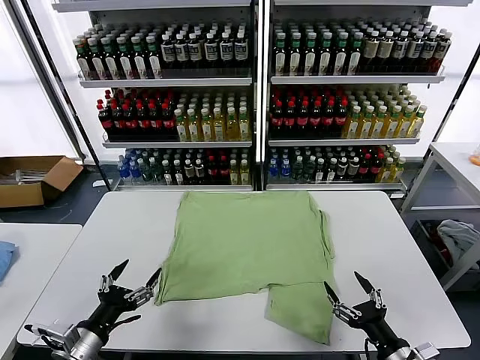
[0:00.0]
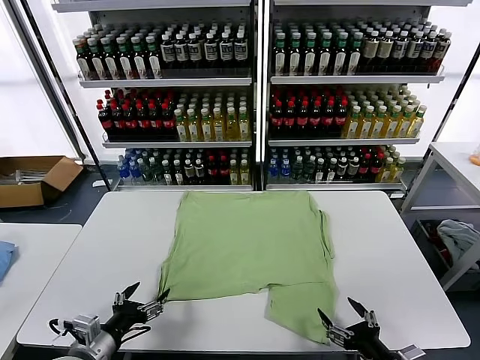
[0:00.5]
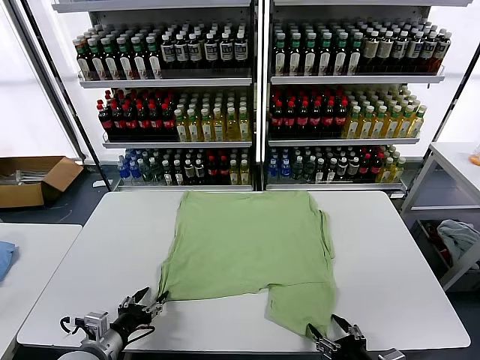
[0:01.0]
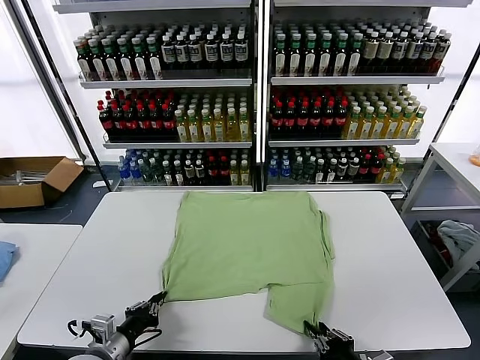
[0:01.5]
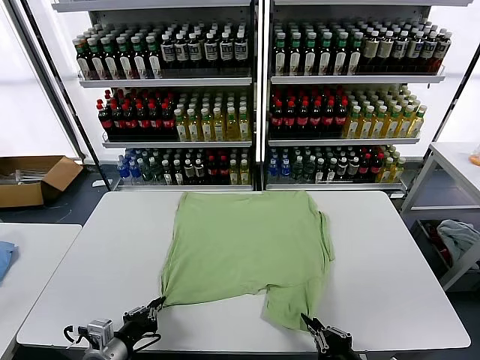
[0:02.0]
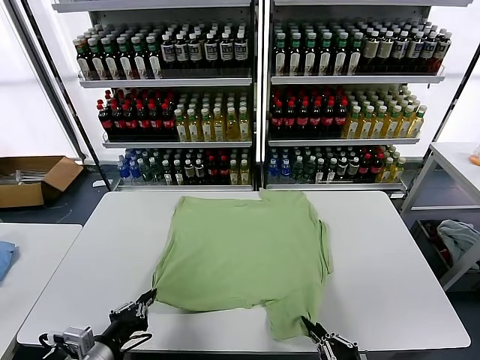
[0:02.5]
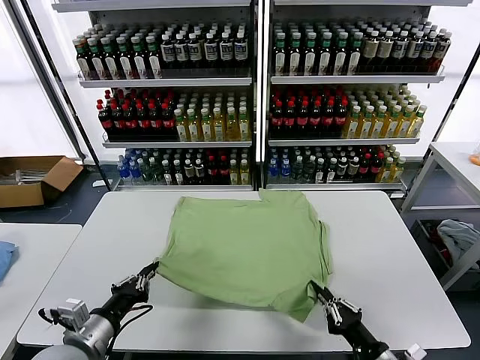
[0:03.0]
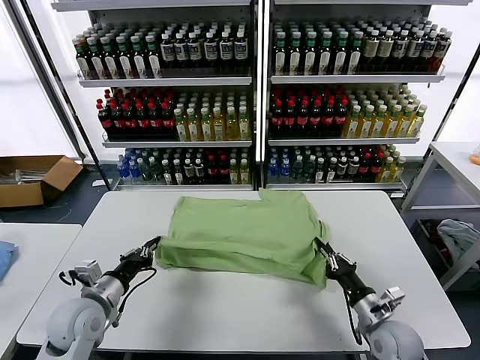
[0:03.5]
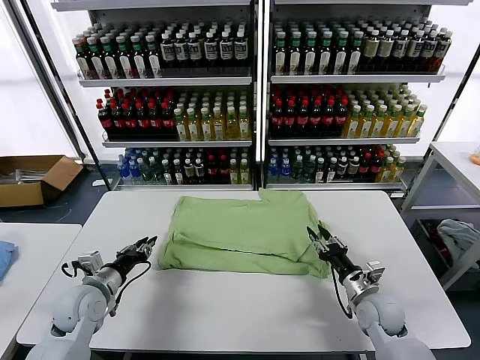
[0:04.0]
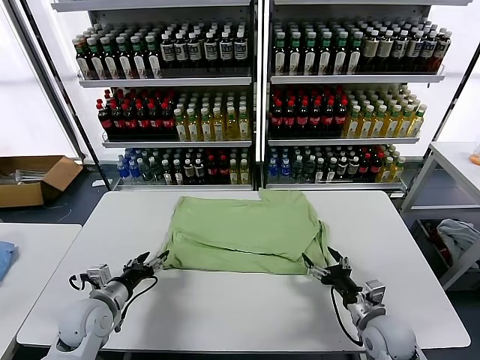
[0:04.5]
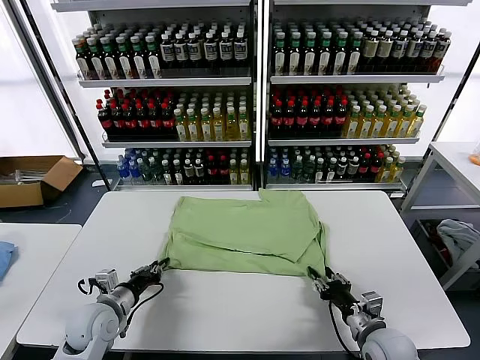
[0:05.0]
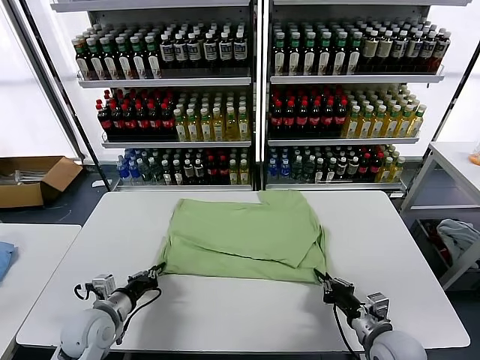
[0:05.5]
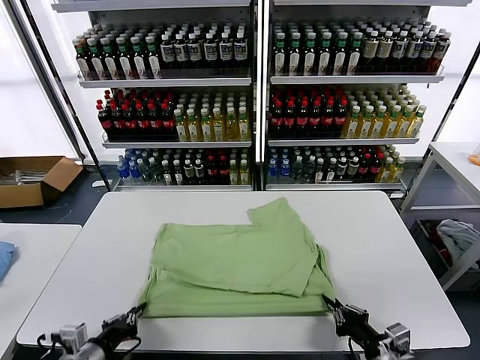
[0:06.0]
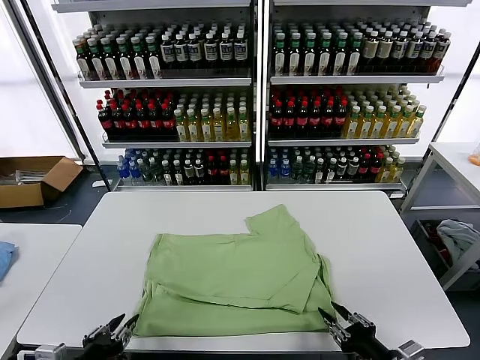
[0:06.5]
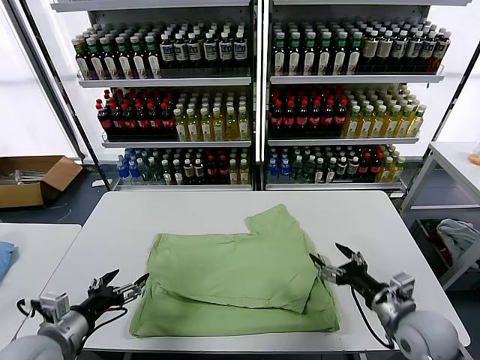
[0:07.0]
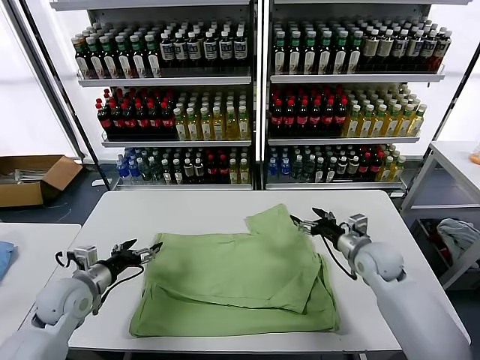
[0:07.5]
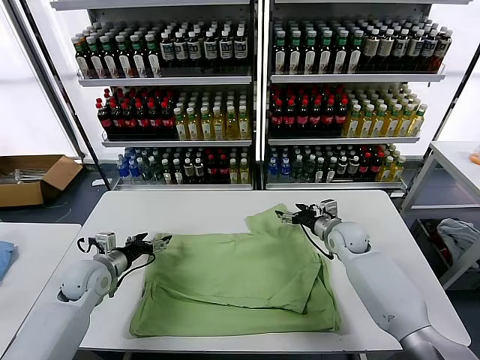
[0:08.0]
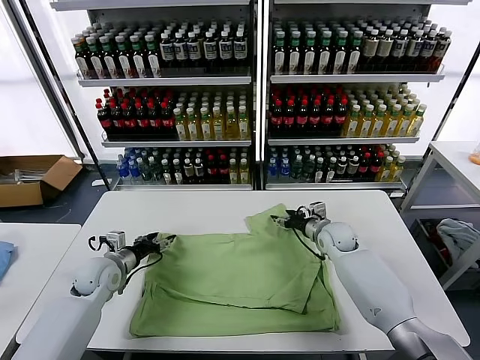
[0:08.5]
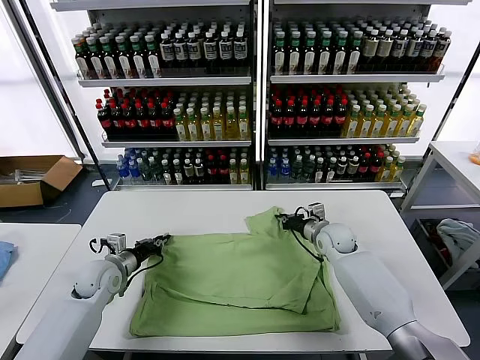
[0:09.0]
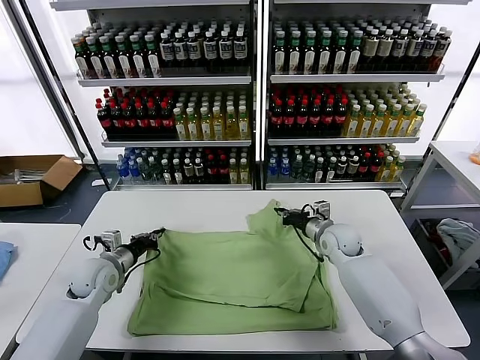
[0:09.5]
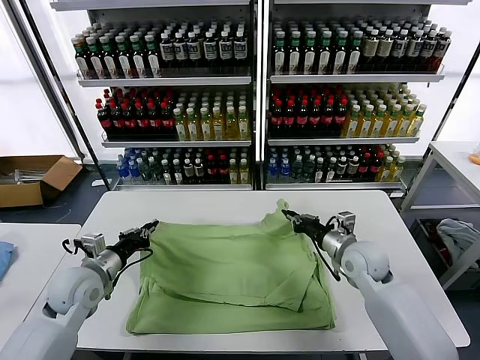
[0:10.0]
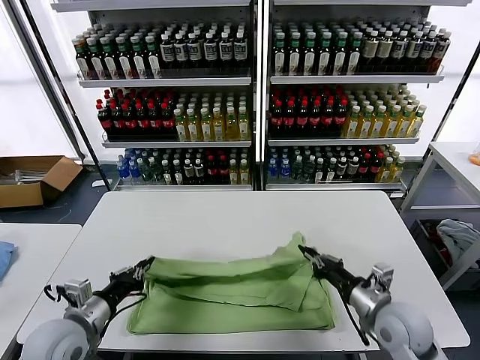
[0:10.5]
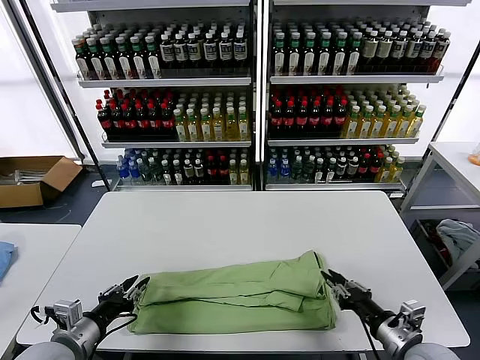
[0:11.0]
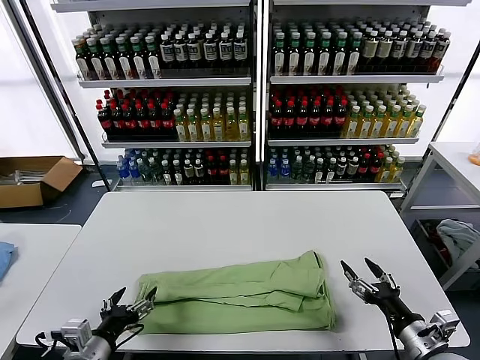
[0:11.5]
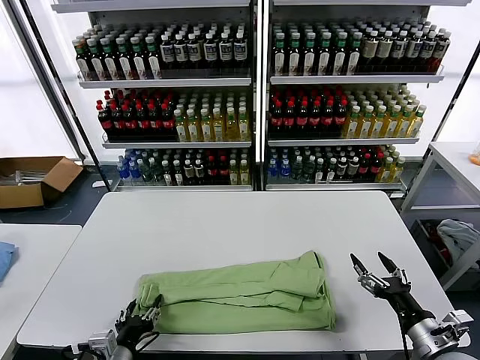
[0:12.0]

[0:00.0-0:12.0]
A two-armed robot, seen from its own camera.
Task of the whole recording: fold and organize the clothes.
Step, 0:00.0 to 0:01.5: use both grippers simultaneously to clamp the lower edge of the clothing fabric.
Step, 0:02.0 to 0:04.0: use both grippers to drag the lower edge of the fabric forward and fold it over the upper edge.
Step, 0:04.5 to 0:06.5: Drag the clothes downward with both gripper.
Step, 0:07.0 to 0:09.0: use both grippers simultaneously to clamp the upper edge of the clothing fabric.
Step, 0:09.5 to 0:11.0: use both grippers to drag the upper edge of the fabric backward and fold it over the lower edge.
0:02.0 to 0:04.0: The right gripper goes some 20 cm forward, and opens its fingers. Meanwhile the left gripper heads forward, covering approximately 15 cm, and opens its fingers.
0:04.0 to 0:06.0: Both grippers move backward, about 15 cm. The right gripper closes up; the left gripper closes its fingers.
0:06.0 to 0:08.0: The right gripper travels forward by about 35 cm, and opens its fingers, while the left gripper moves forward, about 20 cm, and opens.
0:08.0 to 0:10.0: The right gripper shifts approximately 10 cm backward, and closes up; the left gripper ends up approximately 5 cm from where it was, and closes.
0:10.0 to 0:12.0: The right gripper travels backward and to the right by roughly 25 cm, and opens; the left gripper is displaced backward, to the right and downward by some 20 cm, and opens.

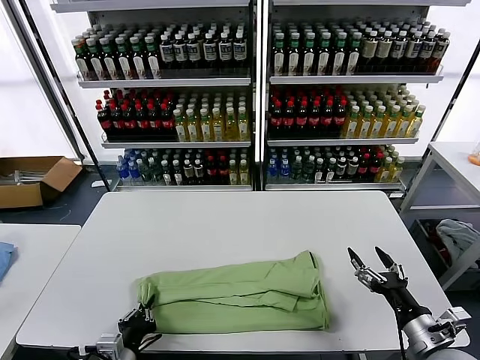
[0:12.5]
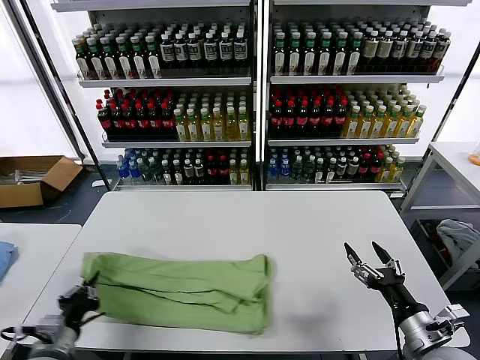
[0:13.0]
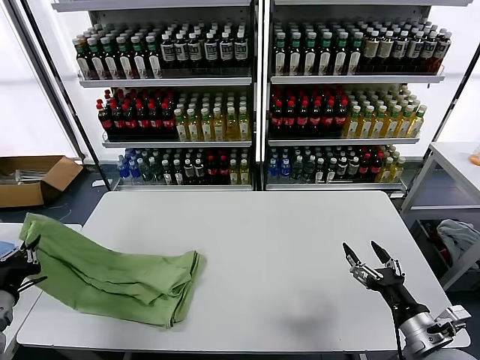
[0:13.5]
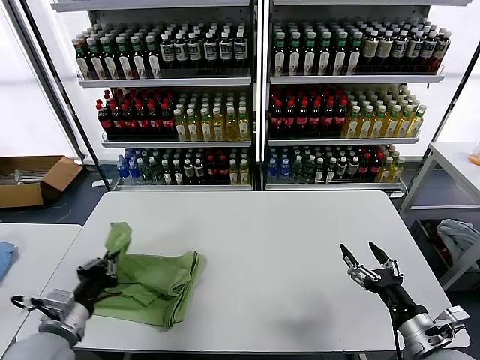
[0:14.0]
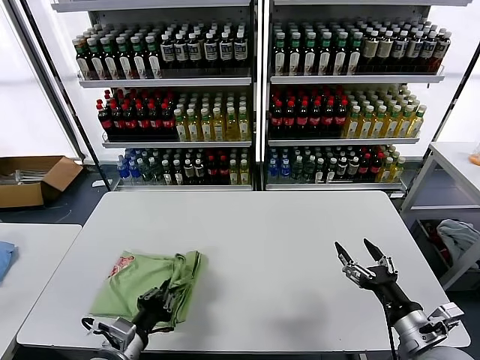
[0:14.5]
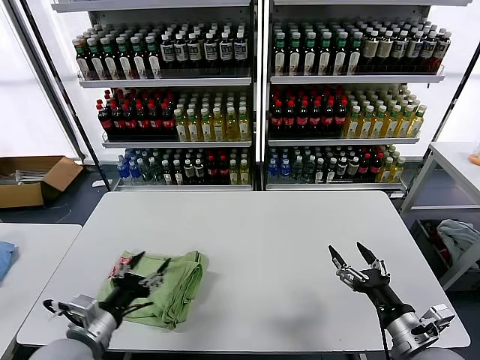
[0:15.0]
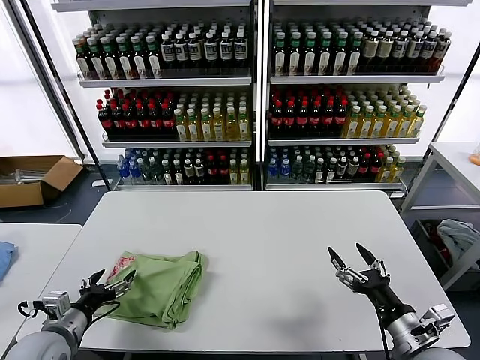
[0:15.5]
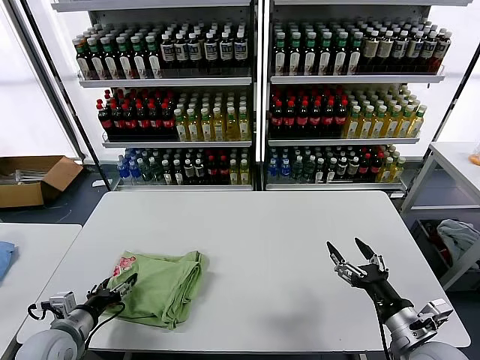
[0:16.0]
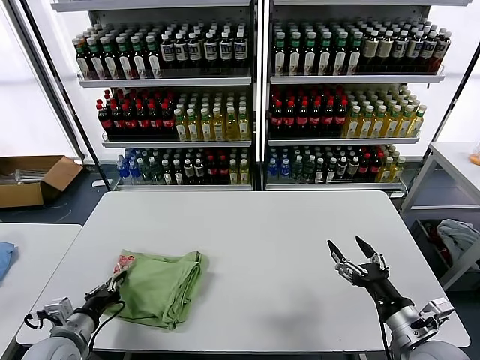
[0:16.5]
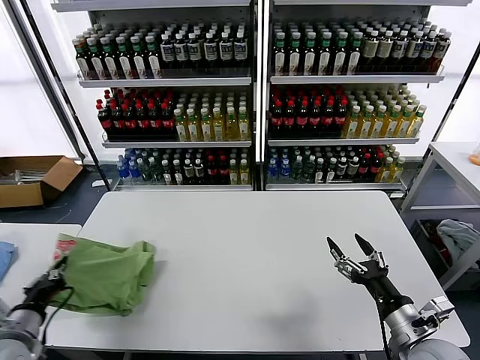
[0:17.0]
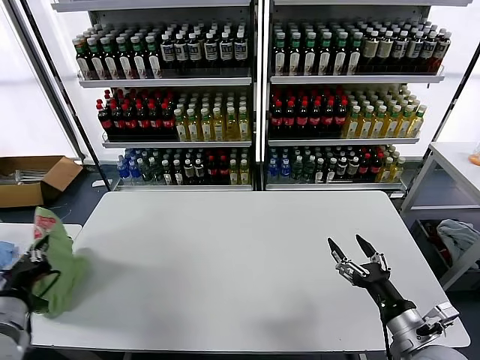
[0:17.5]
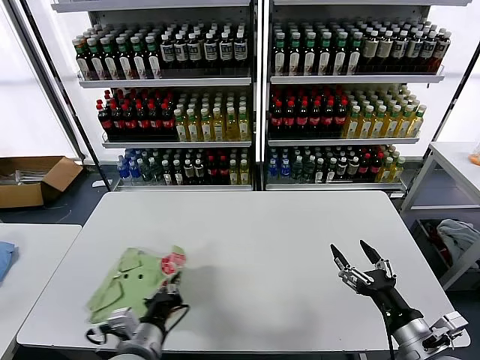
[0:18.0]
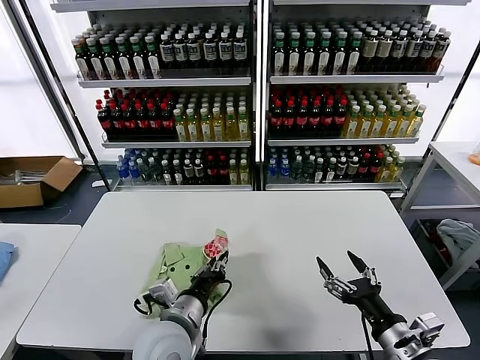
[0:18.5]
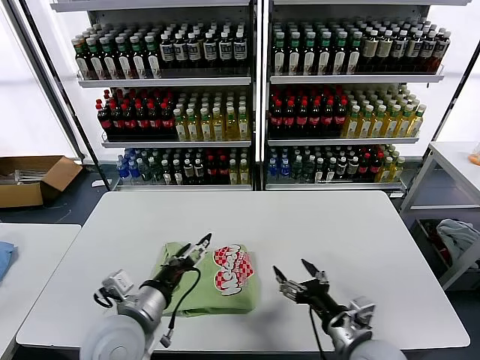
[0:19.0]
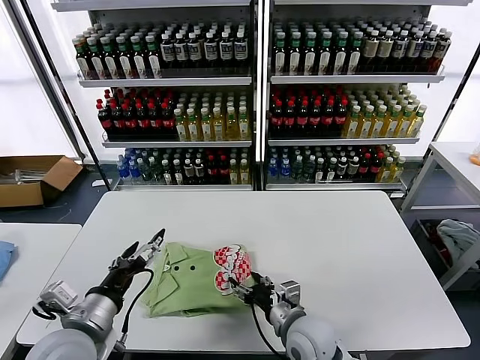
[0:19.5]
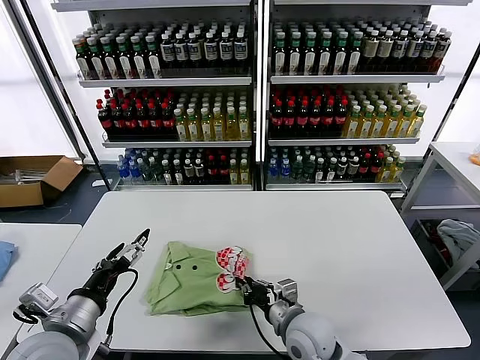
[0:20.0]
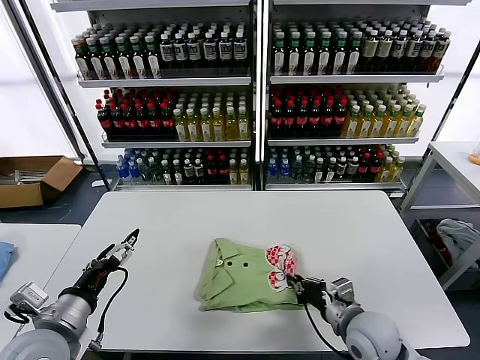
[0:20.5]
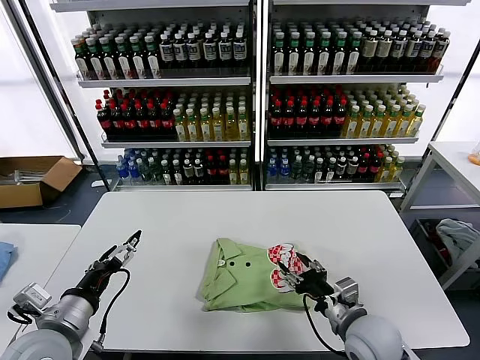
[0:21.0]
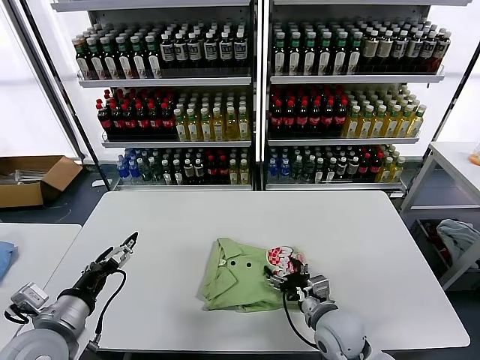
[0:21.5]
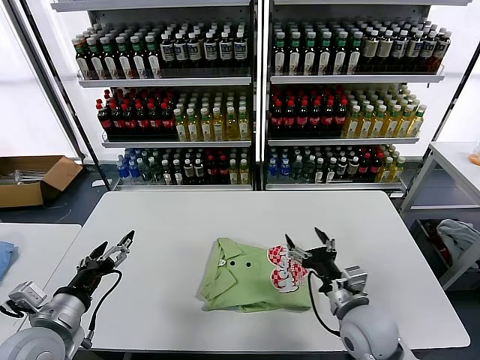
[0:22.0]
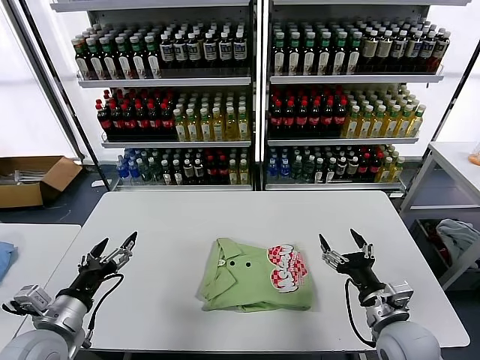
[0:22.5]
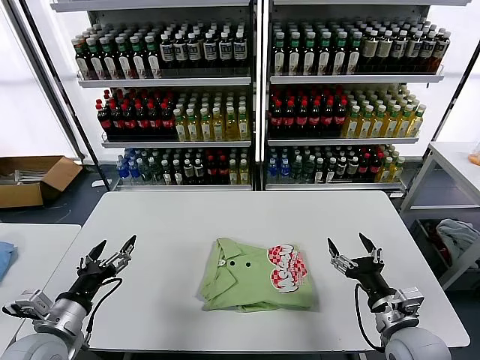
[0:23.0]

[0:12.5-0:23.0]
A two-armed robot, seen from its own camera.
Task of the whole recording: fold and organize the clothes.
Step, 0:13.0 to 0:14.5: use the left gripper to drag the left edge of the fabric to the left and folds it over the right edge.
Step, 0:15.0 to 0:18.5: Flip the folded clothes over with left gripper.
Step, 0:19.0 to 0:21.5: Drag the clothes to the center of the table.
0:12.5 to 0:14.5: The left gripper goes to the left and returns, approximately 20 cm each way.
0:14.5 to 0:16.5: The left gripper goes about 10 cm to the left, and opens and closes again.
0:16.5 to 0:19.0: The left gripper goes left and right, approximately 30 cm each way, reversing 2 times, and opens its fingers. Meanwhile the right gripper is displaced to the left by about 10 cm.
0:19.0 to 0:21.0: The left gripper goes some 10 cm to the left; the right gripper reaches about 10 cm to the left, then returns, and closes its fingers.
0:21.0 to 0:23.0: The right gripper goes approximately 5 cm to the right, and opens. The left gripper changes place by roughly 5 cm.

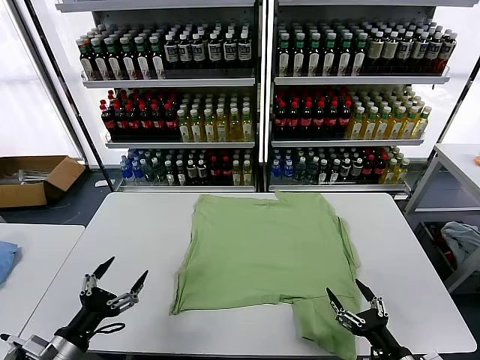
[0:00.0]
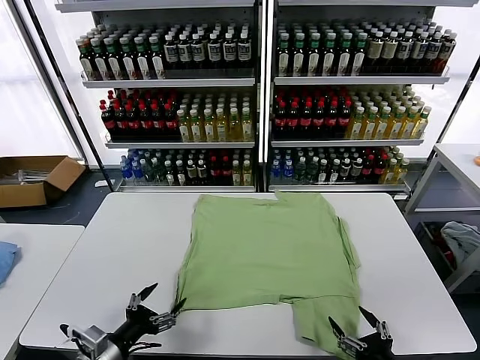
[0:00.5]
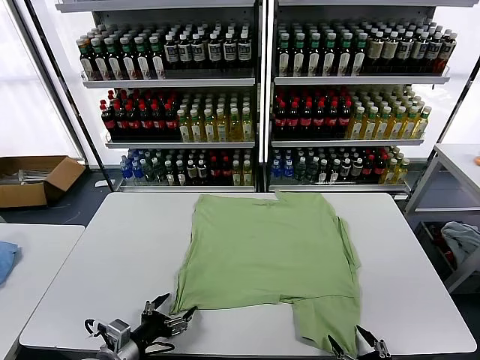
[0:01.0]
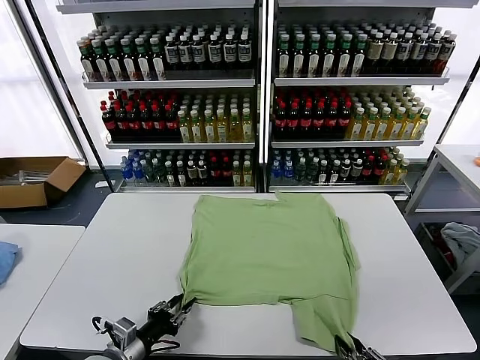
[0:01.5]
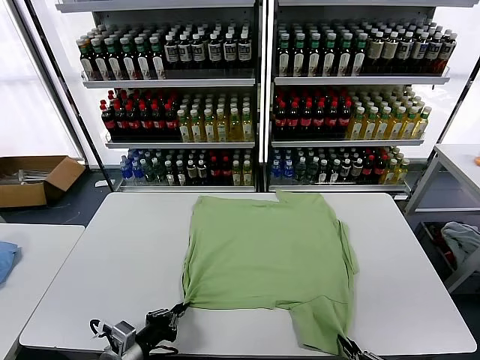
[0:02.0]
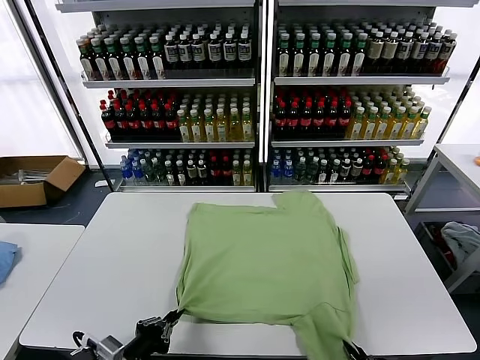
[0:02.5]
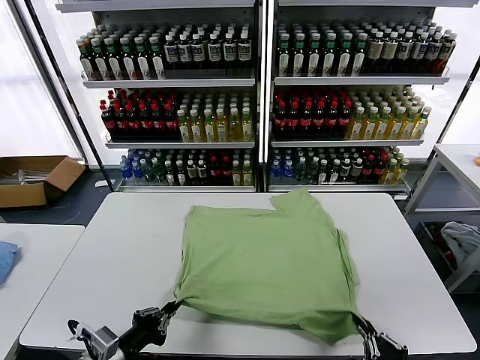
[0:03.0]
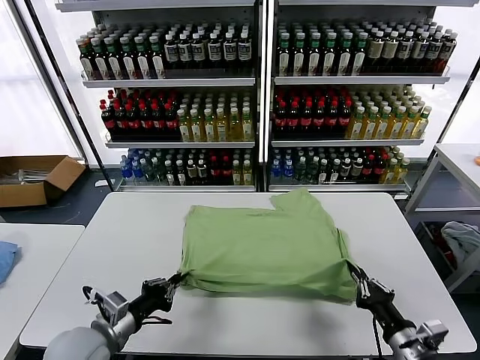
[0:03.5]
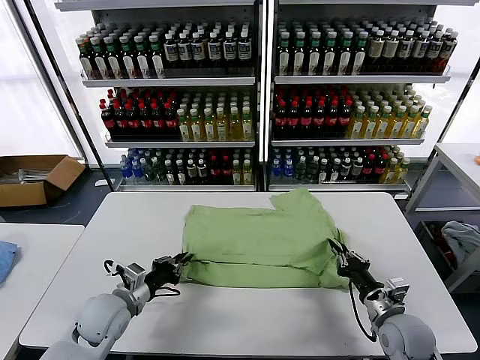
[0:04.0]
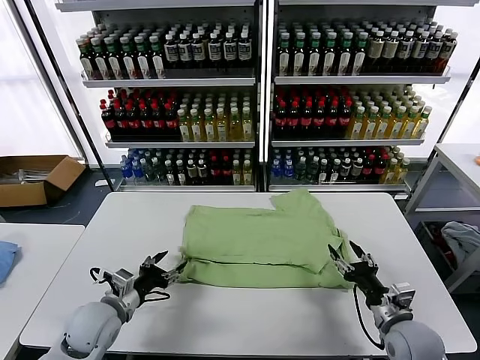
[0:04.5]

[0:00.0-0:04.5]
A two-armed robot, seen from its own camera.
Task of the whole recording: fold and organize the clothes.
Step, 0:00.0 to 0:01.5: use both grippers simultaneously to clamp the lower edge of the clothing fabric.
Step, 0:02.0 to 0:04.0: use both grippers to drag the lower edge of the fabric forward and fold it over the upper edge.
0:02.0 to 0:04.5: The right gripper goes roughly 20 cm forward, and opens its fingers; the left gripper shifts approximately 10 cm forward, and opens its fingers.
